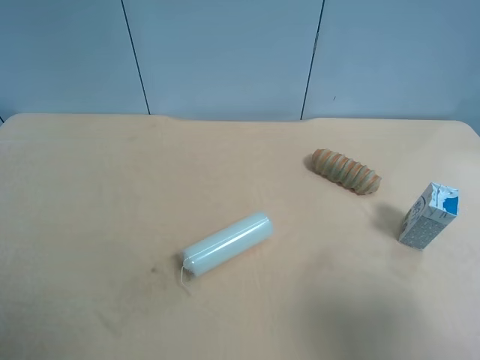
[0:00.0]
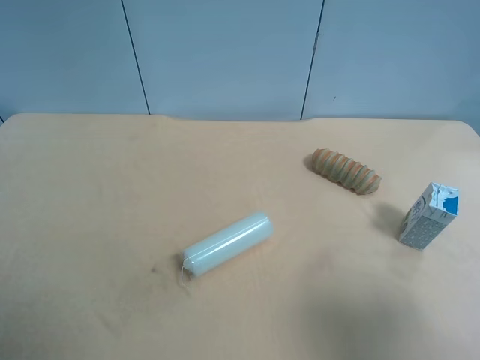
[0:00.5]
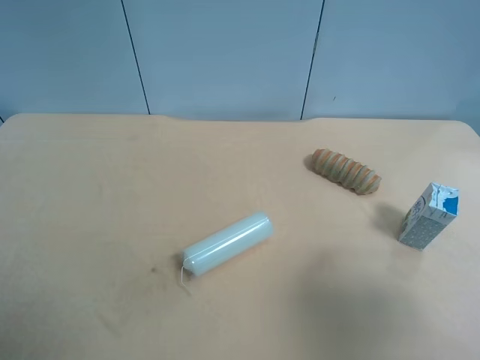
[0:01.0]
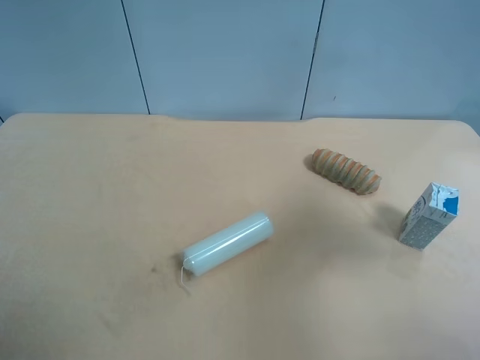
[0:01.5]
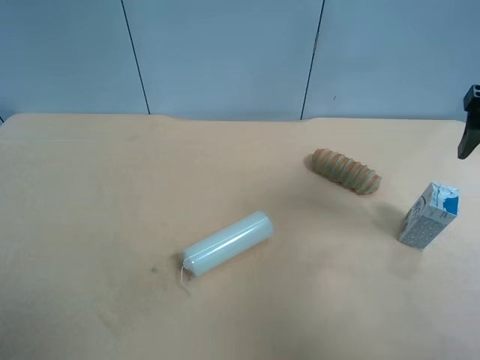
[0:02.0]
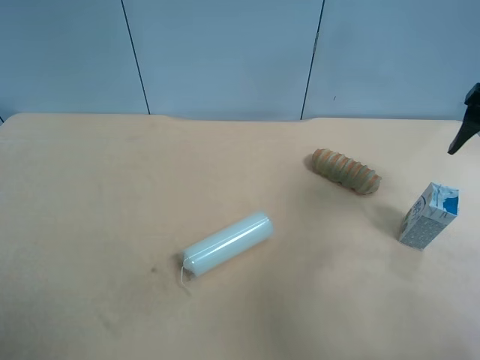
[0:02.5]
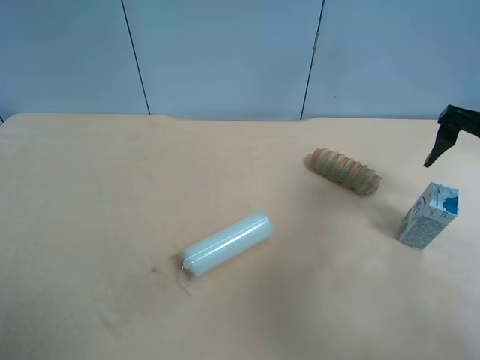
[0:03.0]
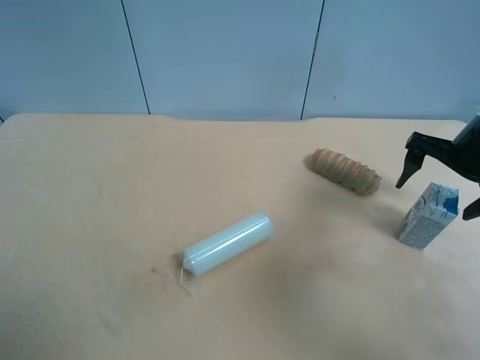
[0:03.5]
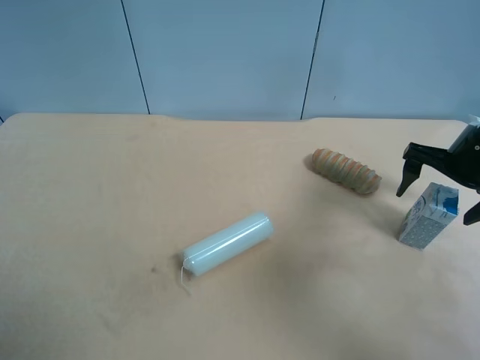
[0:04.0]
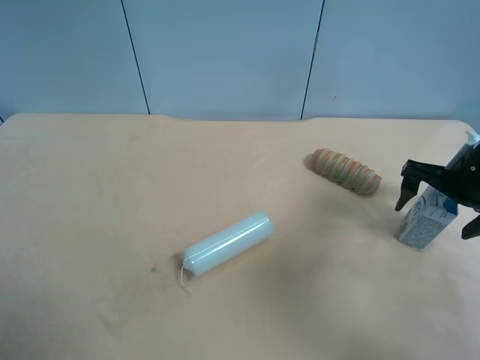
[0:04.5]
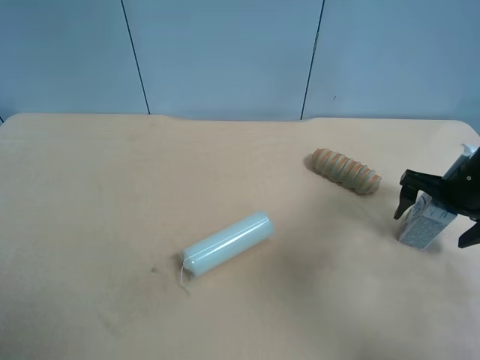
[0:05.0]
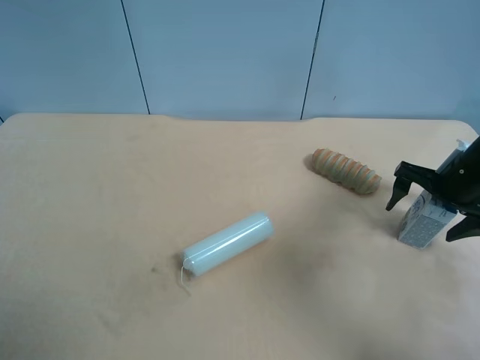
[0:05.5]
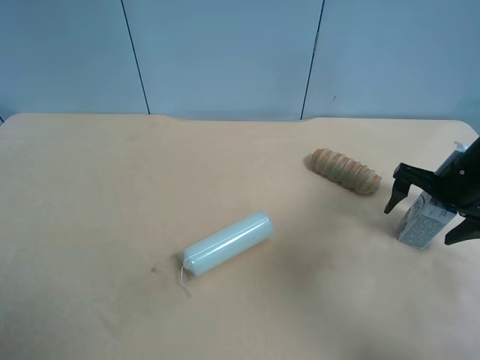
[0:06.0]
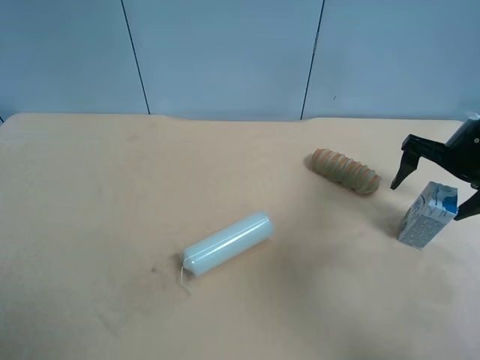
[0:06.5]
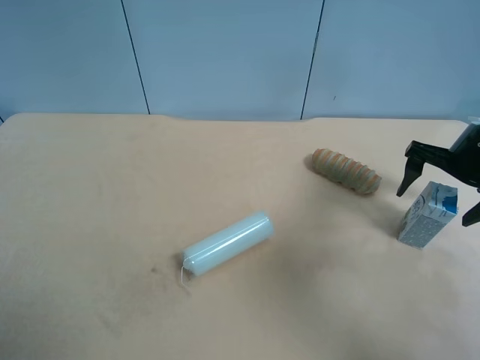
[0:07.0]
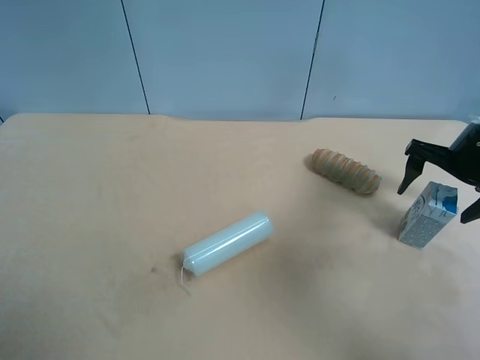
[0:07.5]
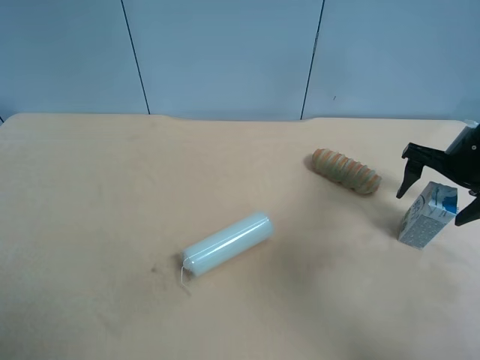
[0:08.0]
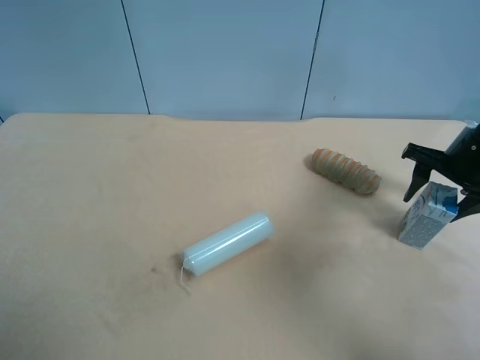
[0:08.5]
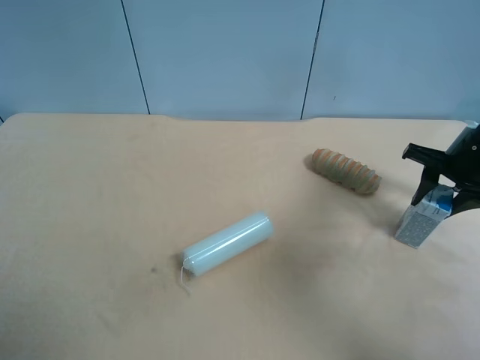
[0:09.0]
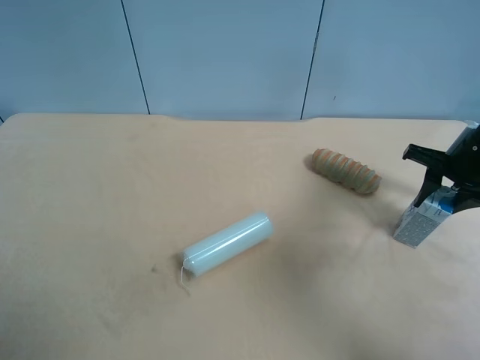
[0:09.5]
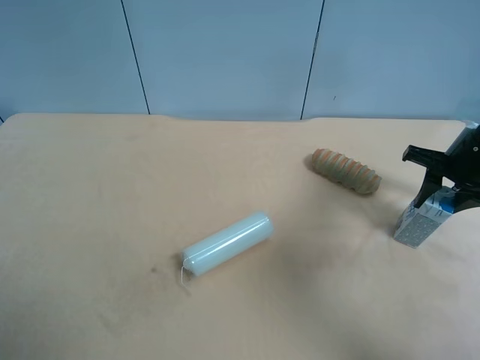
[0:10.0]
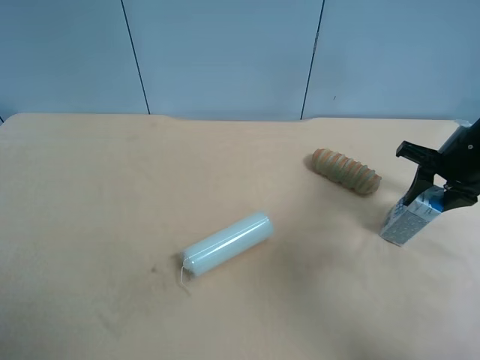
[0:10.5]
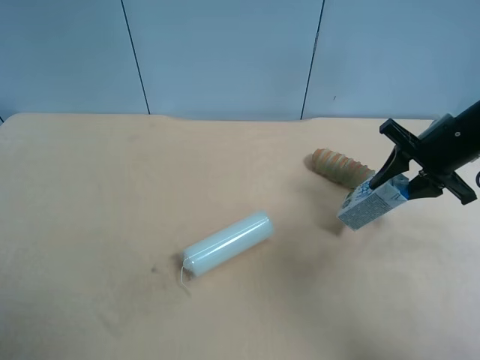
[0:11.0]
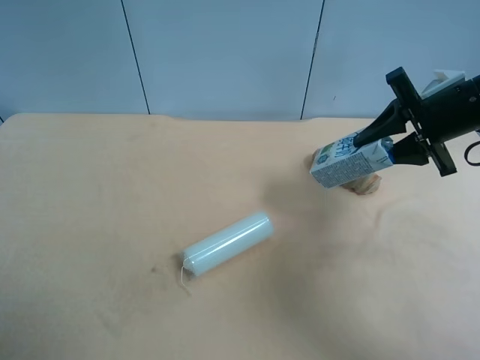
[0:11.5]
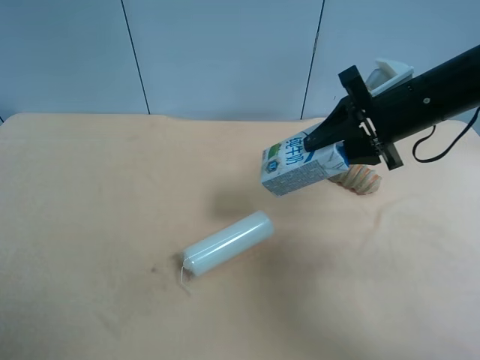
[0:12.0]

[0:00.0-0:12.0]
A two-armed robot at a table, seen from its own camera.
Task of the whole recording: use the right gripper to pick up the item and transfer it from the right gripper to the left gripper.
0:00.0 to 0:02.0: The right gripper goes roughly 25 cm forward.
0:02.0 to 0:04.0: The right gripper goes roughly 15 cm downward and forward.
0:04.0 to 0:08.0: There are only small adjustments of the grippers.
0:08.0 to 0:10.0: The right gripper closes up.
0:10.0 to 0:12.0: The right gripper moves to the left and upward, roughly 15 cm.

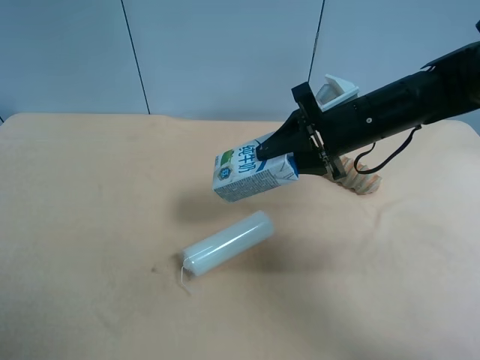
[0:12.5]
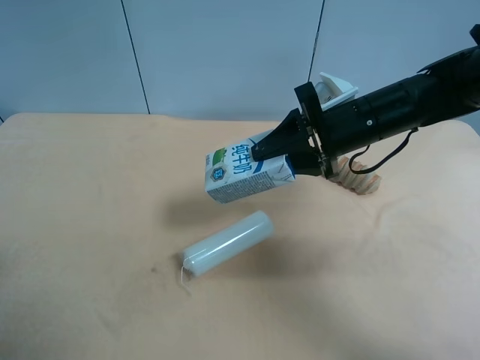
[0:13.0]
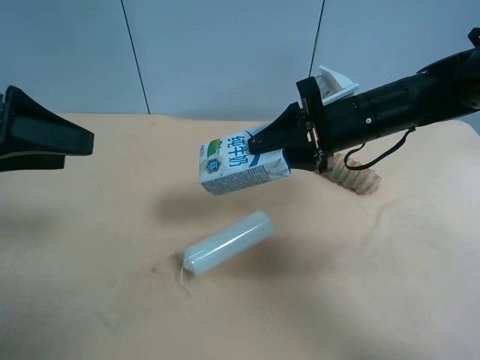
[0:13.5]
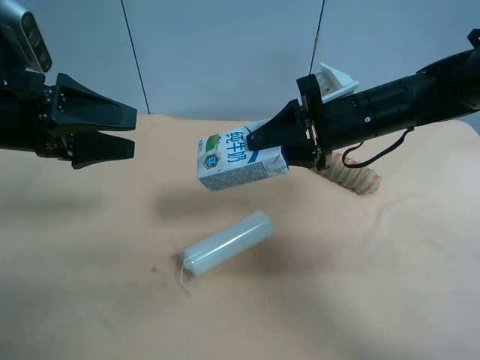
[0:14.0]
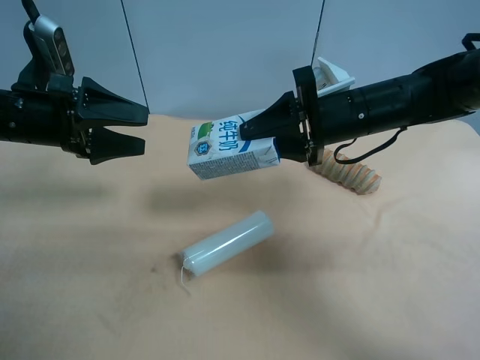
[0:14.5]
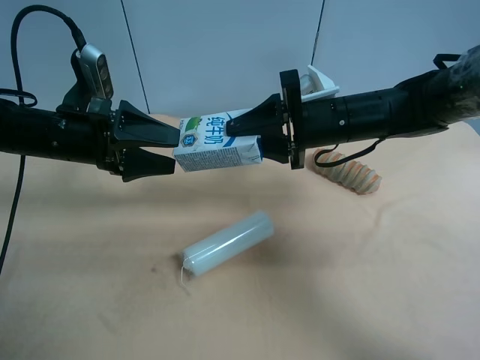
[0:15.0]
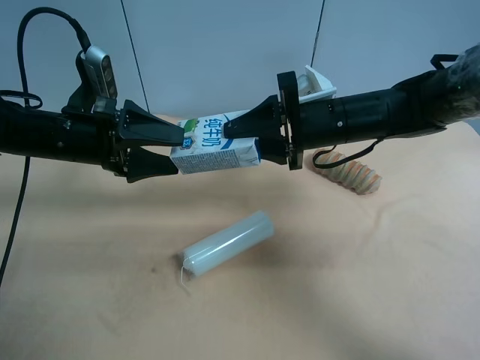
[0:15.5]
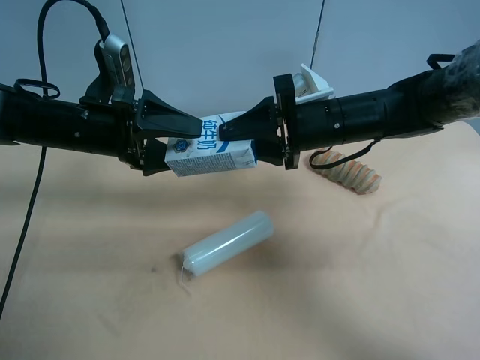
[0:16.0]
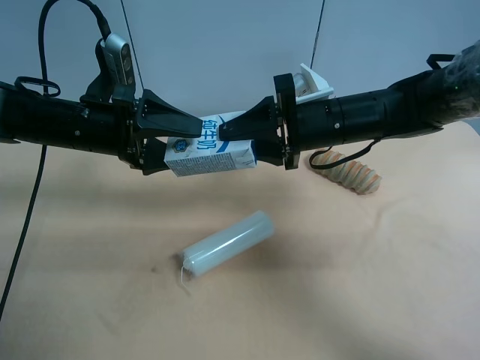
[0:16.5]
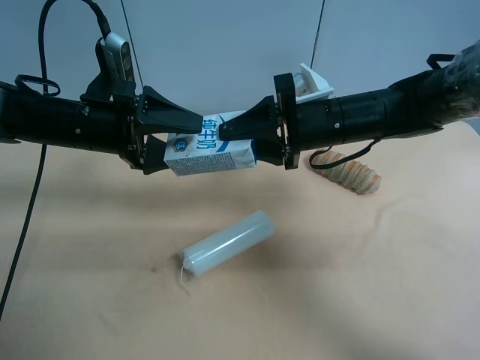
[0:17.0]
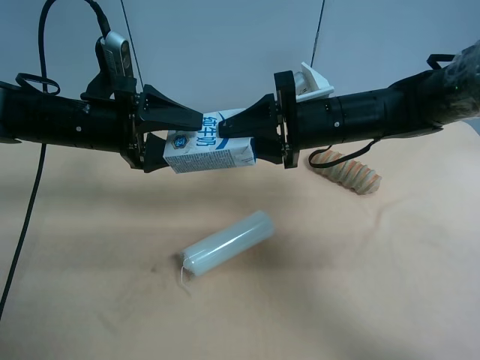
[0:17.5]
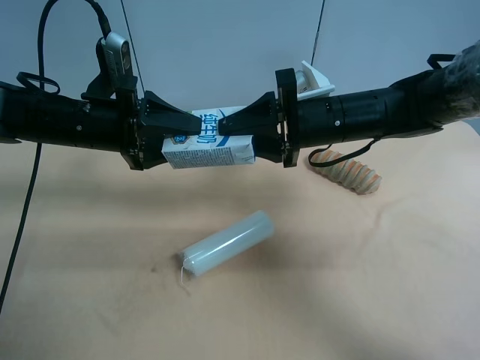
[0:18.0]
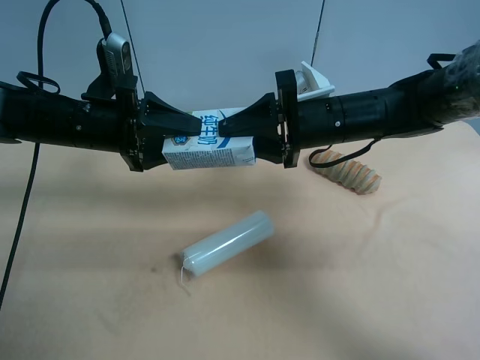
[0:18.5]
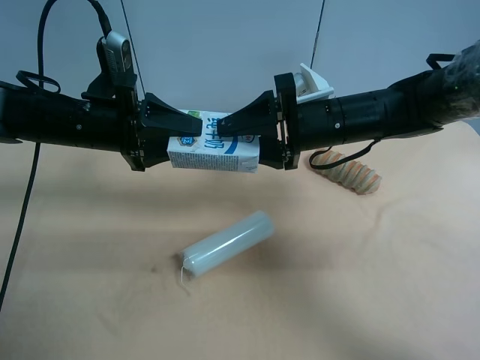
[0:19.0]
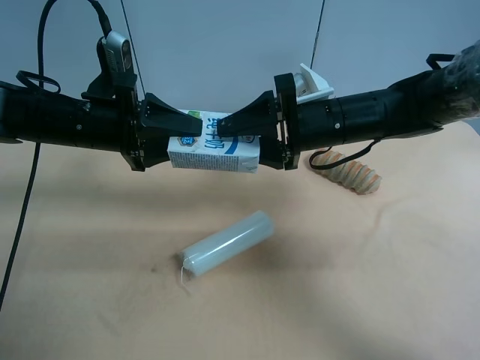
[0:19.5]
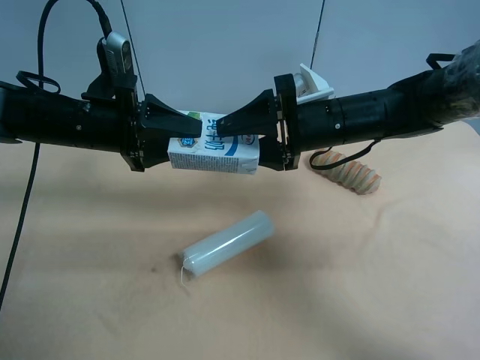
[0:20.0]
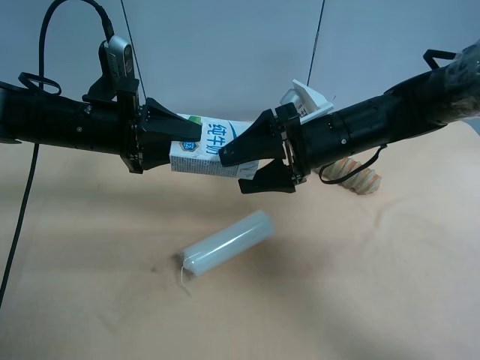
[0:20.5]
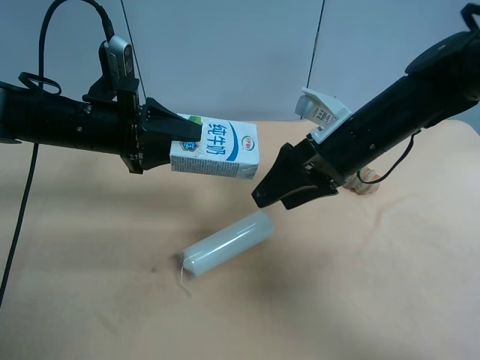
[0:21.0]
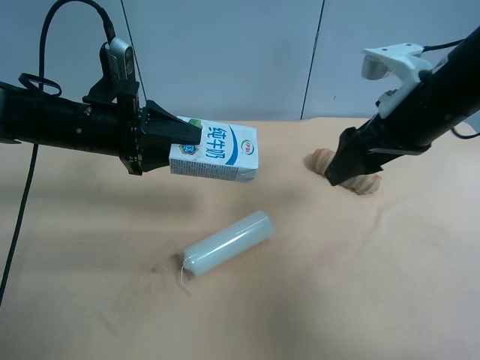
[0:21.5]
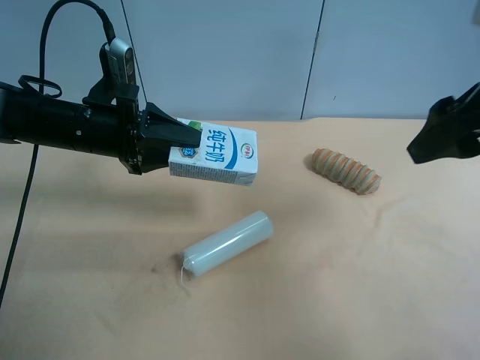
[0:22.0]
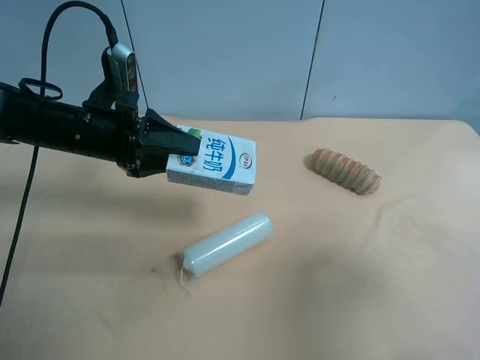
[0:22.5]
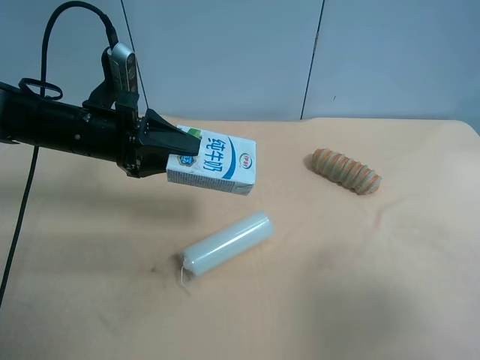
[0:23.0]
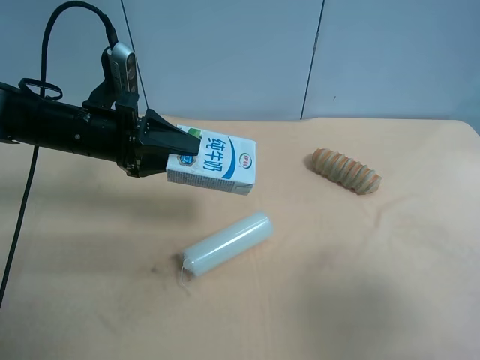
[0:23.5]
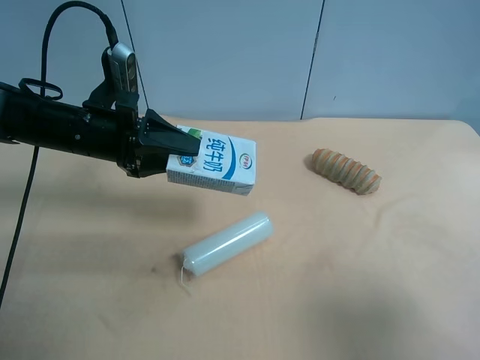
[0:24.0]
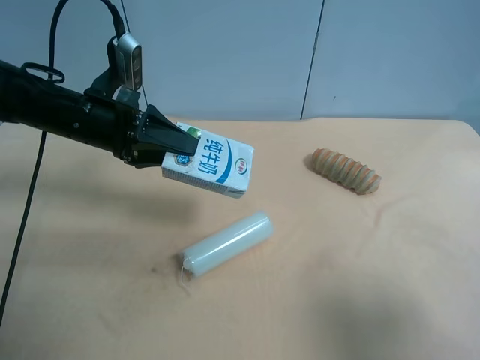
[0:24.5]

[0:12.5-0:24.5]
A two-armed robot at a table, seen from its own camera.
Task of the whole recording: use the right gripper to pick up the item and transfer it from the right gripper to the left gripper.
0:12.5 to 0:14.5: The left gripper goes some 30 cm forward.
0:14.5 to 0:16.5: The left gripper travels to the right by some 5 cm.
0:16.5 to 0:18.5: The left gripper closes.
0:18.5 to 0:20.5: The right gripper opens up.
0:20.5 to 0:22.5: The right gripper heads backward, to the right and upward, covering some 30 cm.
0:22.5 to 0:24.5: The right gripper goes roughly 5 cm backward.

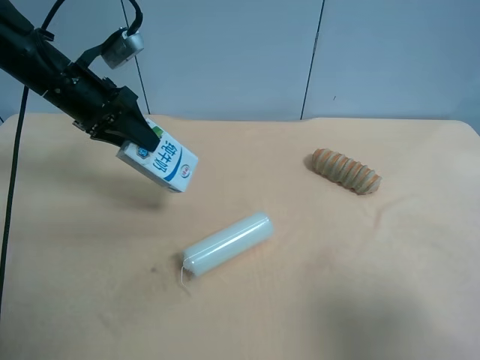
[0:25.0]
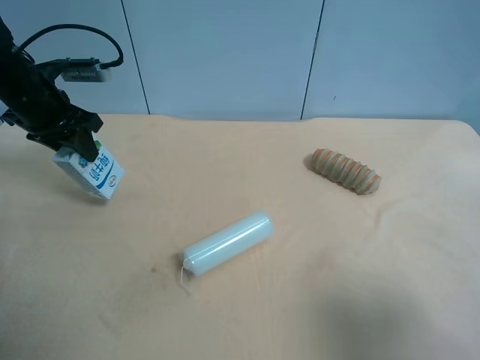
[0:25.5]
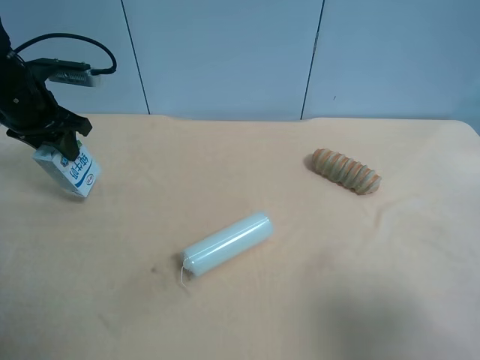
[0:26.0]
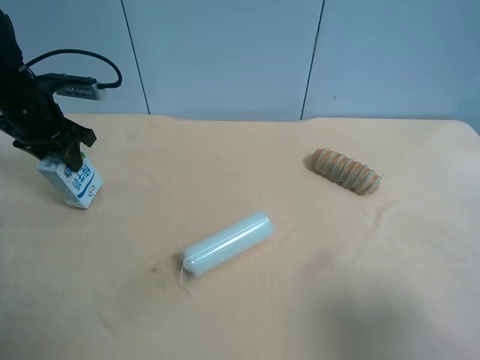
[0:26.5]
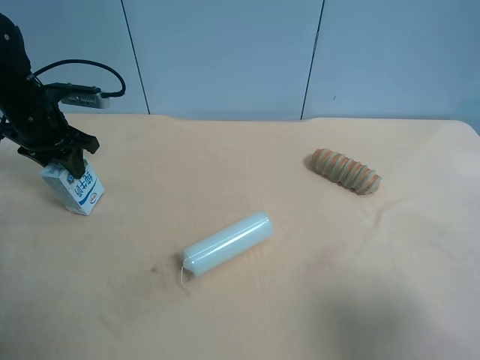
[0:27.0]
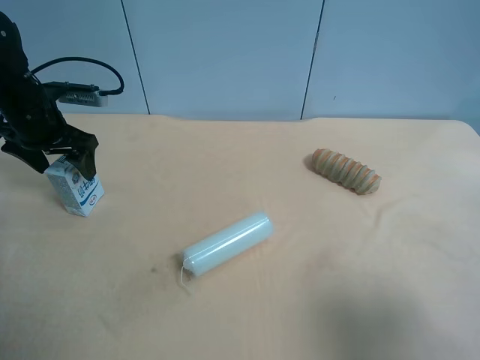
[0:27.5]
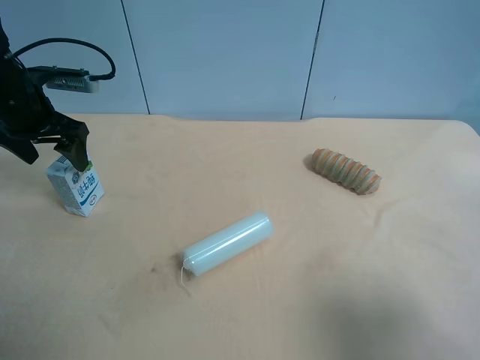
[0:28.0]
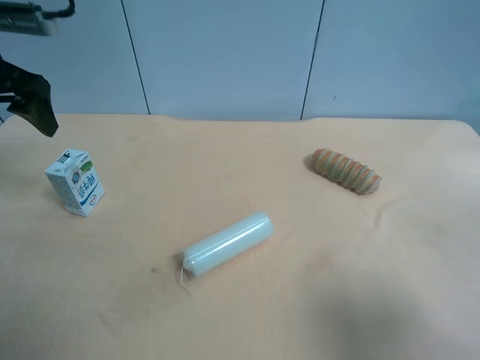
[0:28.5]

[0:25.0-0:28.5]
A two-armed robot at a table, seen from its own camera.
Task of the whole recording: use the right gripper to pick up the item and transfer it from the right gripper to the left gripper.
0:25.0 to 0:27.0: The left gripper goes roughly 5 cm to the left.
0:27.0 to 0:28.5: The left gripper travels upward and backward by roughly 15 cm, and opens its fingers.
